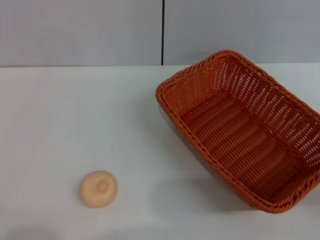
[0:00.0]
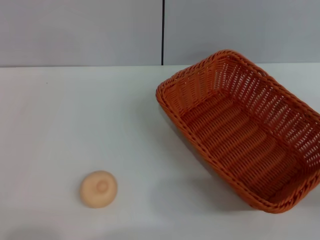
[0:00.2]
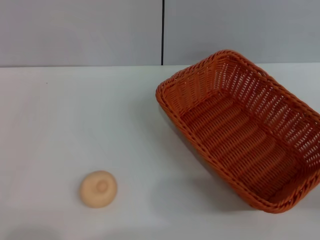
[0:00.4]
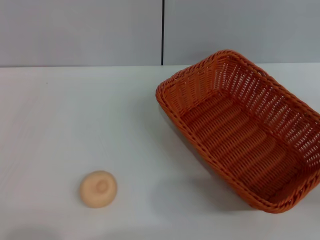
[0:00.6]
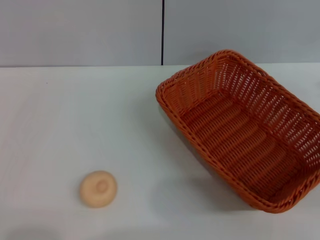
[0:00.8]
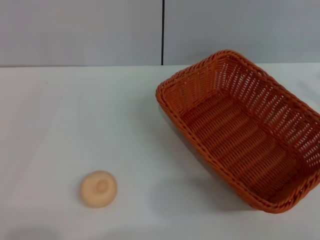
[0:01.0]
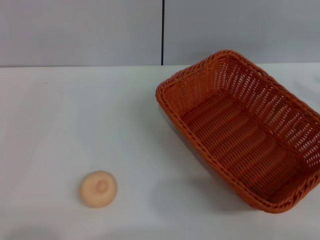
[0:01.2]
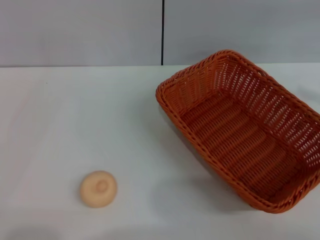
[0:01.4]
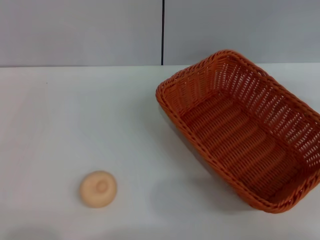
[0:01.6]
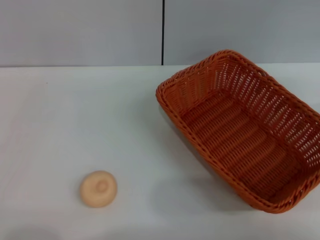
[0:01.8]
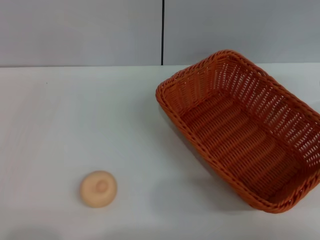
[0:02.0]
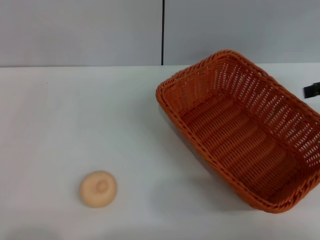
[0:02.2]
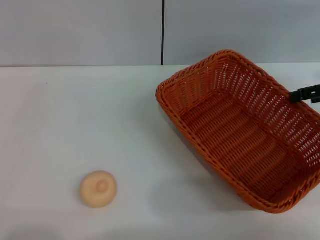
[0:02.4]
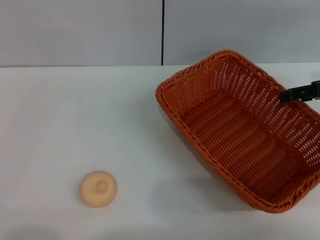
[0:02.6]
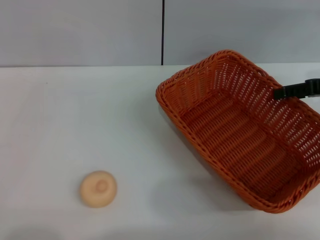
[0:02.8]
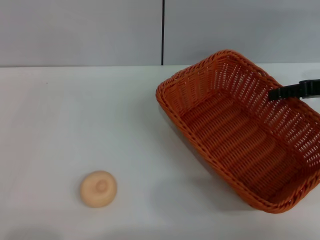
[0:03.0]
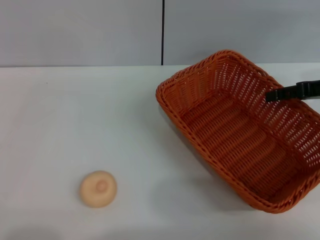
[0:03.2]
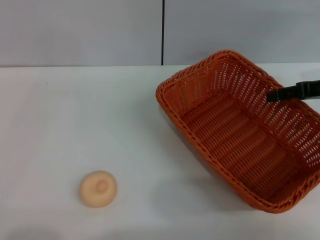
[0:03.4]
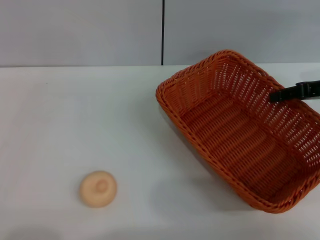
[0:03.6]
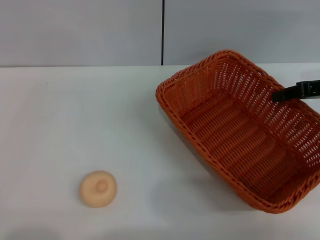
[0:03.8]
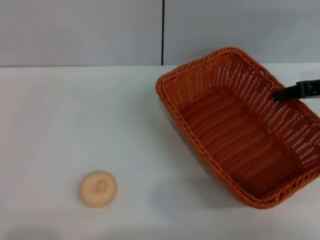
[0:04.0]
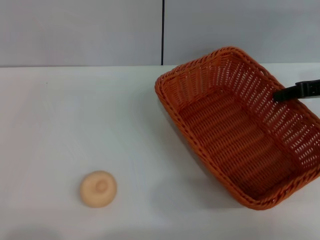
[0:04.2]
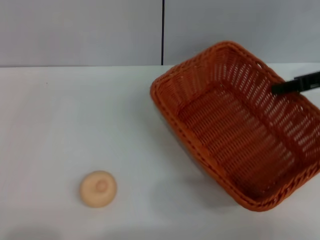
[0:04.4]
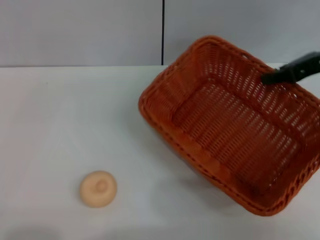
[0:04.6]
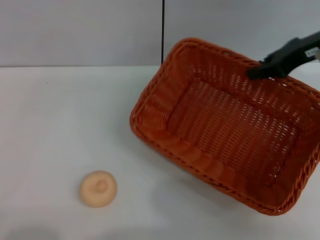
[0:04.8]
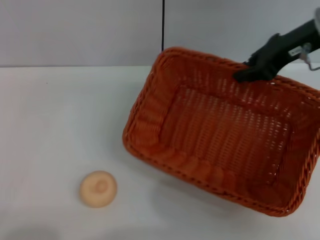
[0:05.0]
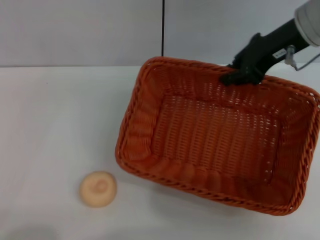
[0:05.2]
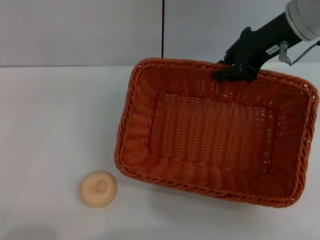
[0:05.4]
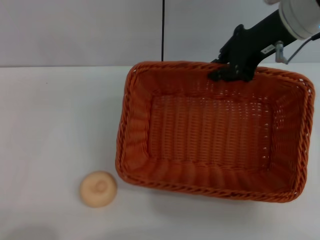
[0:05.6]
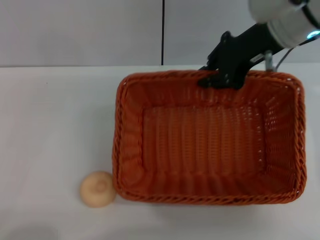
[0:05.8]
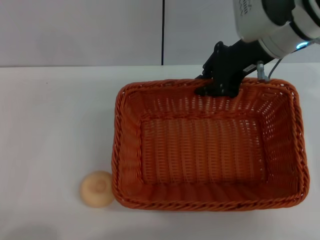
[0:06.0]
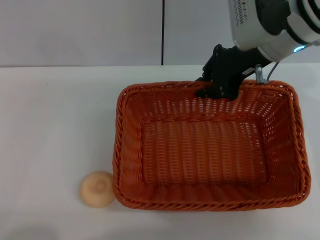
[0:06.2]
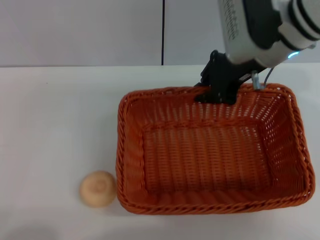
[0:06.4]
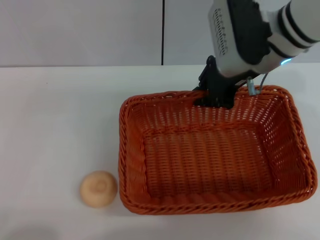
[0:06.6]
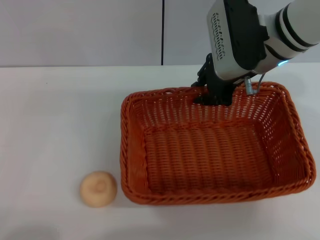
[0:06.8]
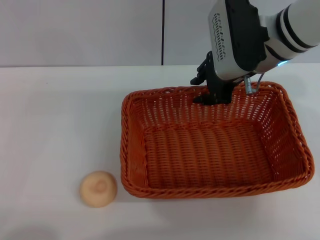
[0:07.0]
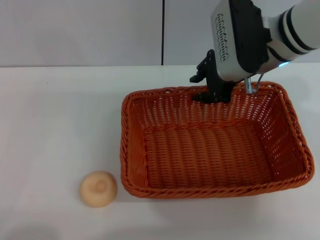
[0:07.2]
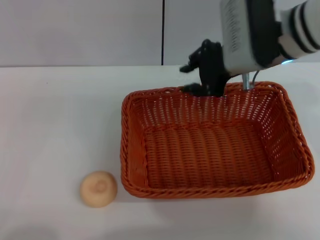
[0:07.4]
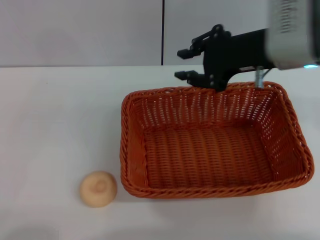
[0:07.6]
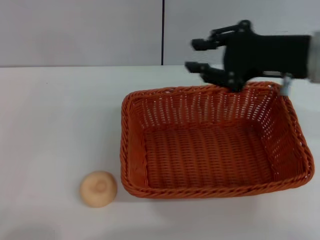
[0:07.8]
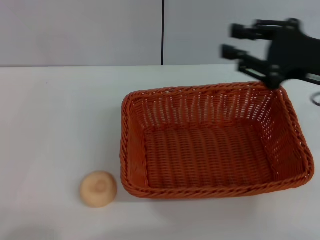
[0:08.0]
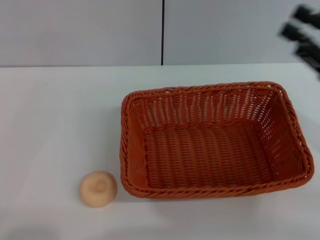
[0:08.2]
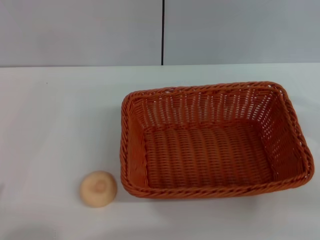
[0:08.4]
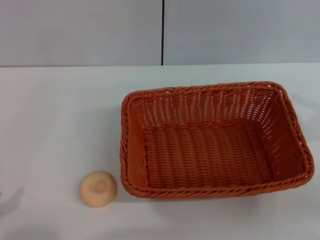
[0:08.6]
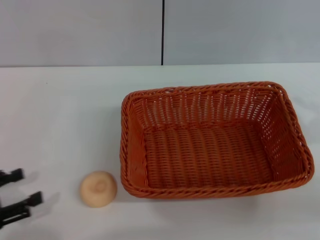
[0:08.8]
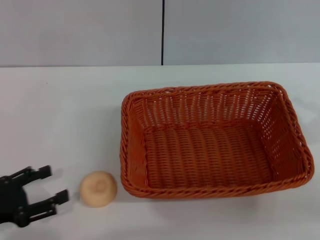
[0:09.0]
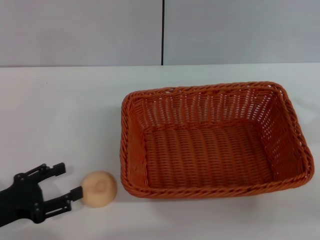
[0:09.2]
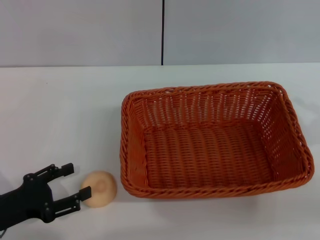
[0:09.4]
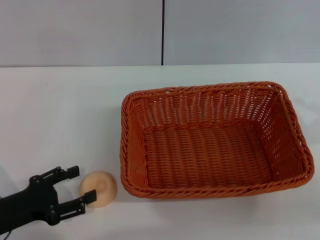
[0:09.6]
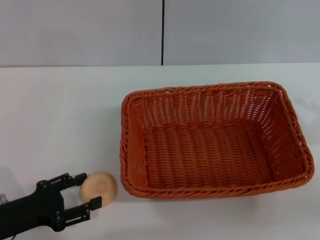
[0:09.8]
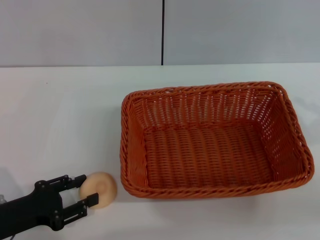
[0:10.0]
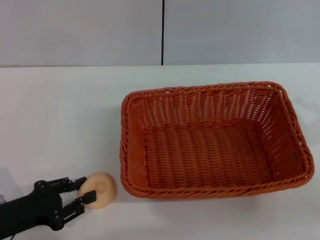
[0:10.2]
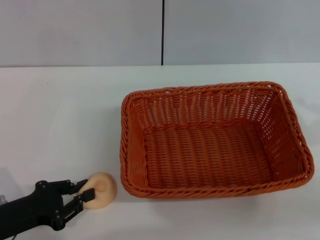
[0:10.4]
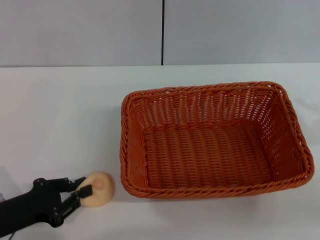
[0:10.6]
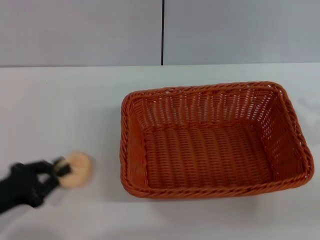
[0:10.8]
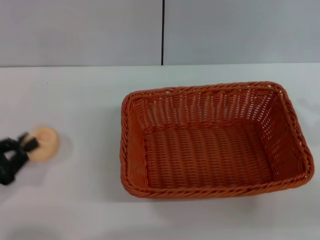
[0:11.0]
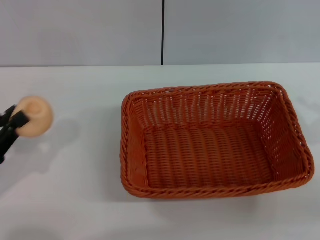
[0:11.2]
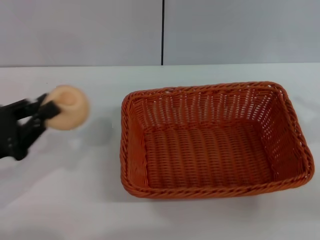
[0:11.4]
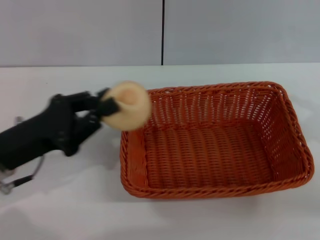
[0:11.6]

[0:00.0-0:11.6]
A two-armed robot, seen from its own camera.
Step, 0:00.0 to 0:07.2: Move the basket to the center of view with the right gripper.
Step, 0:07.4 to 0:10.8: Pick up the egg yolk pastry with the left gripper.
0:01.4 to 0:02.8: The right gripper goes about 10 cm downward, to the left and forward.
0:02.8 to 0:04.4: The right gripper closes.
0:04.4 to 0:05.8: The right gripper is displaced to the left by roughly 15 cm; the left gripper travels backward by about 5 cm.
0:05.8 to 0:07.2: The grippers make only small movements.
0:07.2 to 0:08.8: The right gripper shifts about 25 cm to the right and backward; the left gripper is displaced forward by roughly 10 cm.
0:08.8 to 0:10.2: The left gripper goes about 5 cm to the right, and closes up.
0:10.2 to 0:11.6: The left gripper moves upward and forward, some 10 cm, and closes.

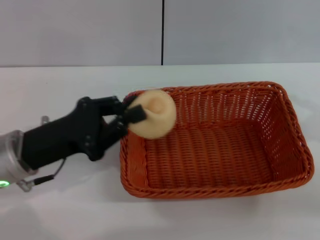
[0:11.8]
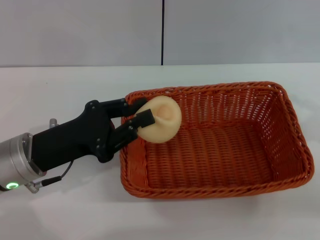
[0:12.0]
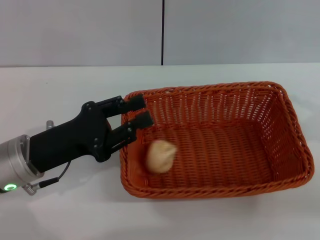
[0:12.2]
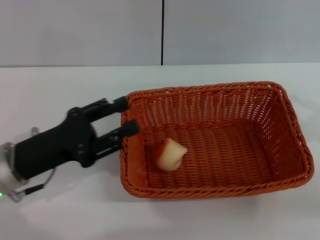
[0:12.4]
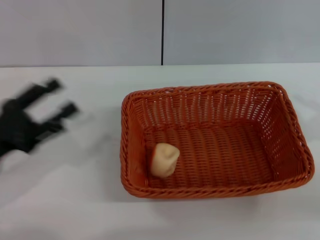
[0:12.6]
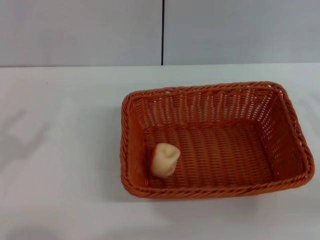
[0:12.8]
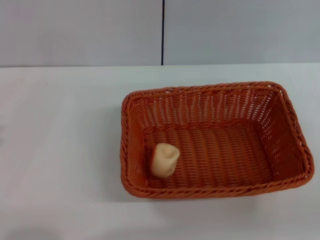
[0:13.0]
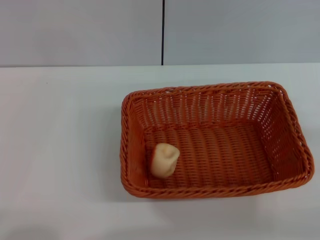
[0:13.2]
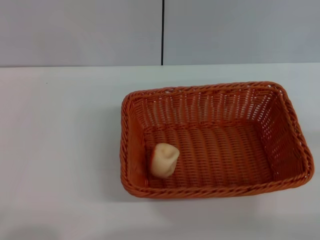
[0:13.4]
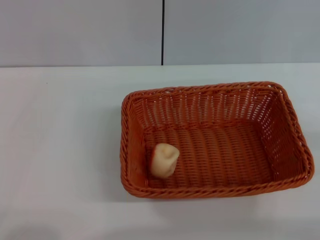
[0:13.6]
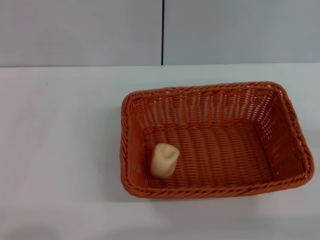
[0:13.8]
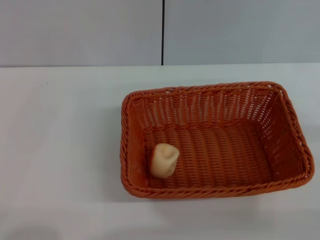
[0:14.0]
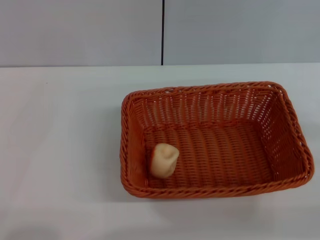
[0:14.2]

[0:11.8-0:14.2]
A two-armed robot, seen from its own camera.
0:11.8 to 0:13.0: The right gripper moves about 5 cm; the left gripper goes approximately 20 cm to the left and backward, and opens up.
